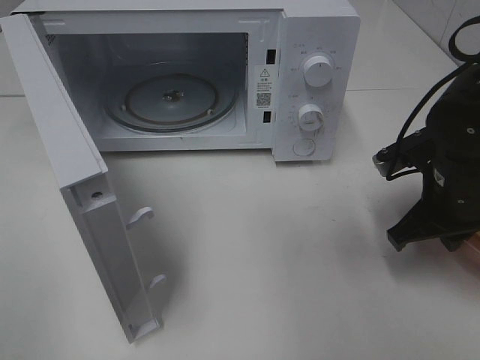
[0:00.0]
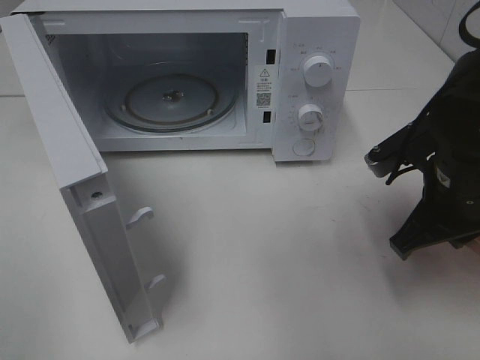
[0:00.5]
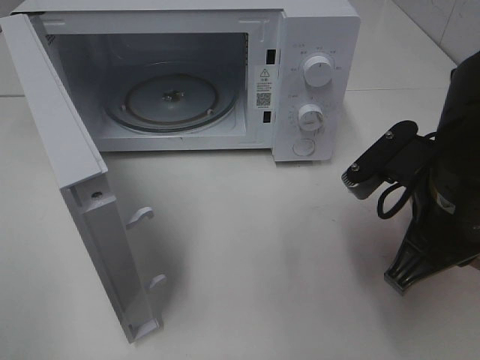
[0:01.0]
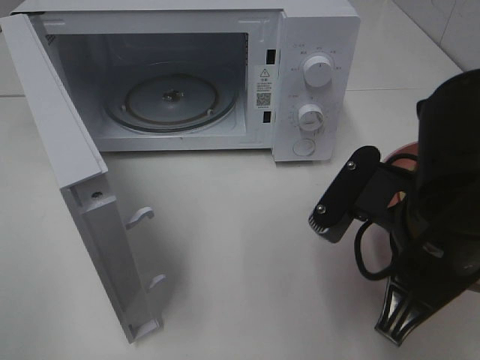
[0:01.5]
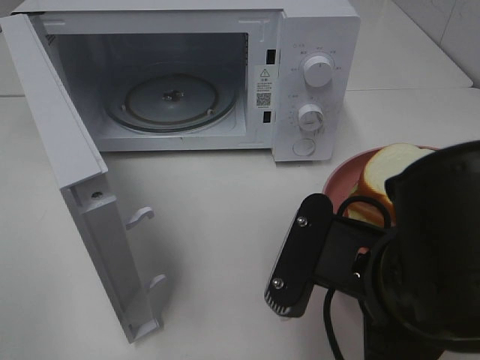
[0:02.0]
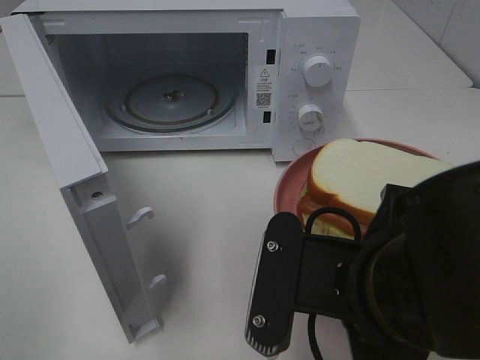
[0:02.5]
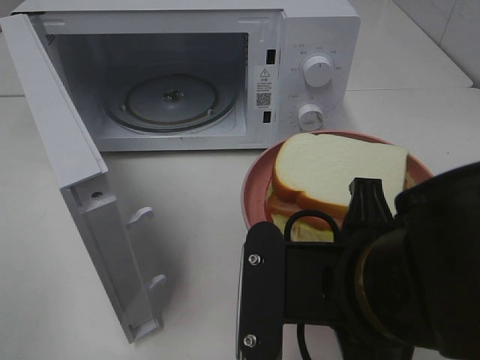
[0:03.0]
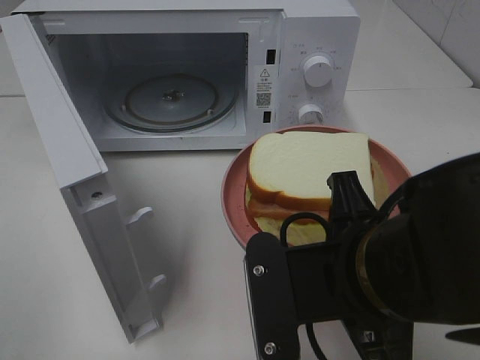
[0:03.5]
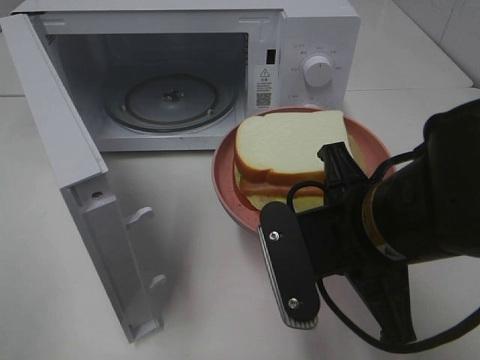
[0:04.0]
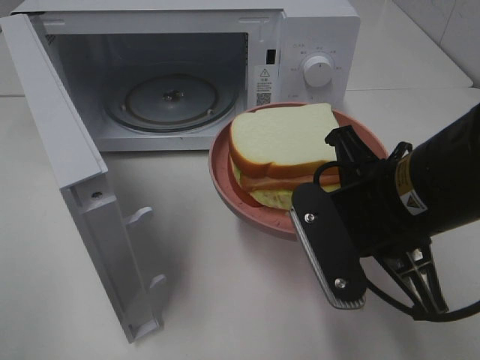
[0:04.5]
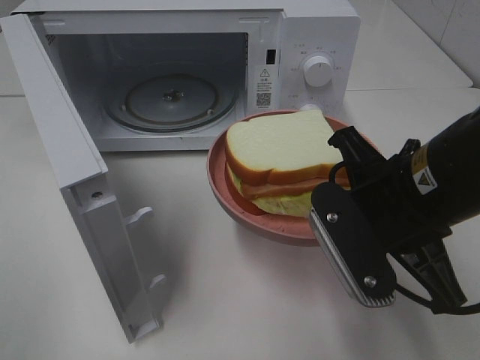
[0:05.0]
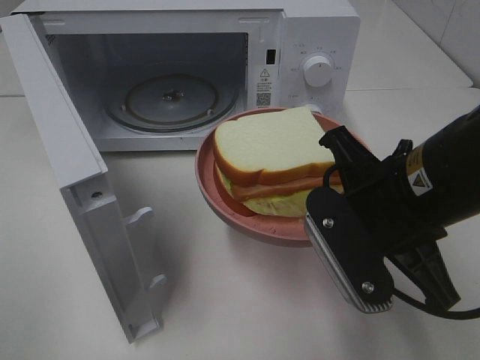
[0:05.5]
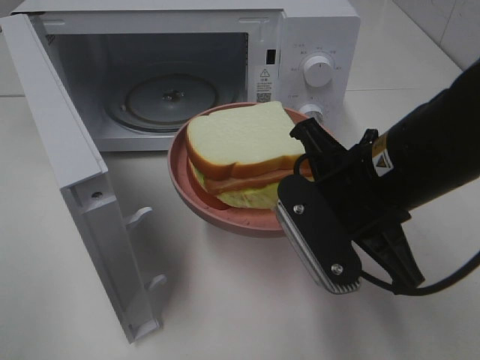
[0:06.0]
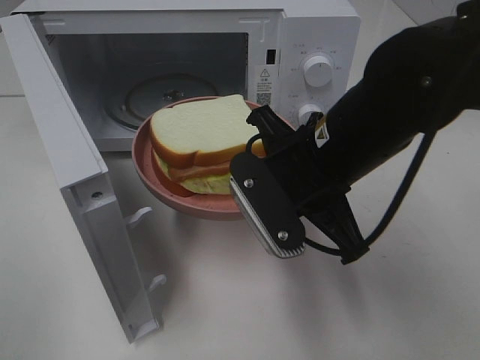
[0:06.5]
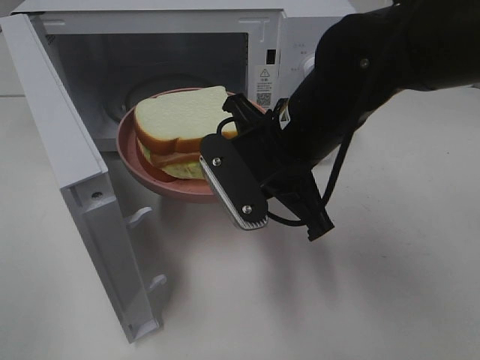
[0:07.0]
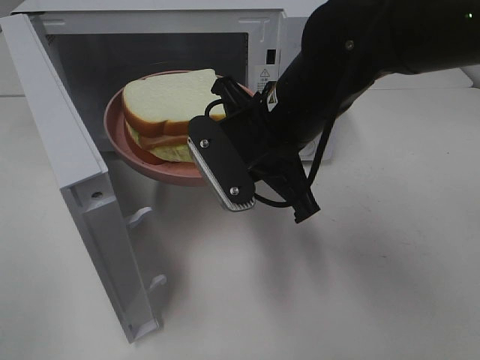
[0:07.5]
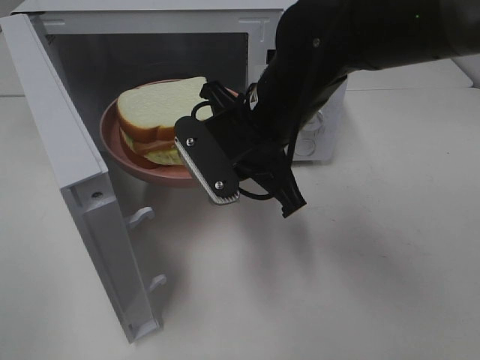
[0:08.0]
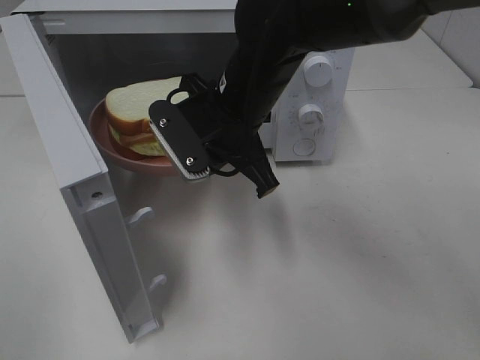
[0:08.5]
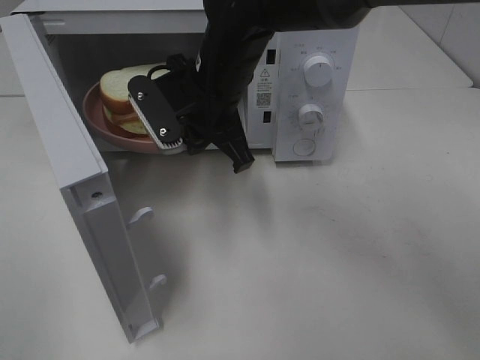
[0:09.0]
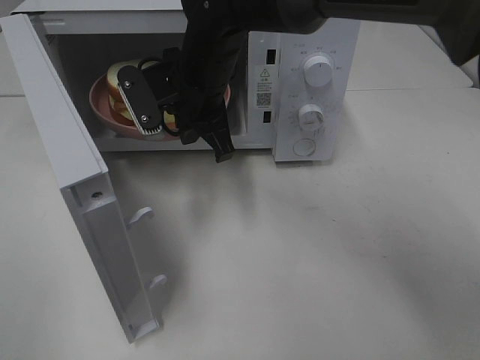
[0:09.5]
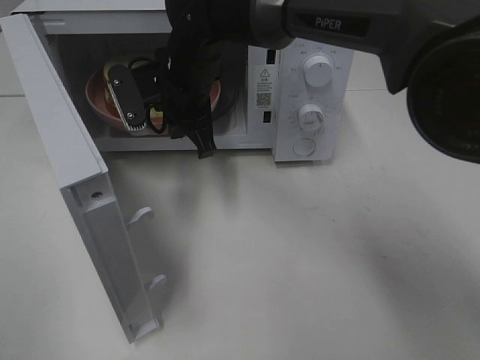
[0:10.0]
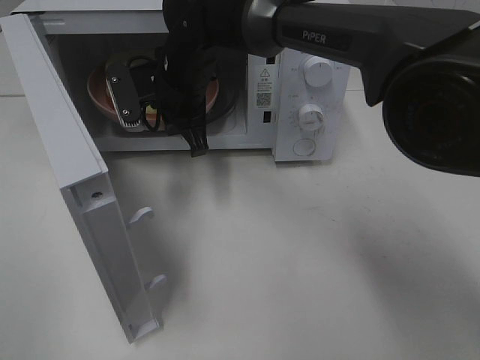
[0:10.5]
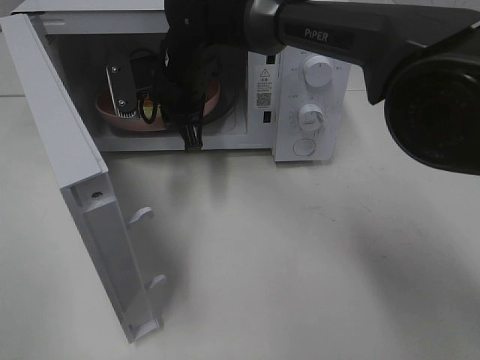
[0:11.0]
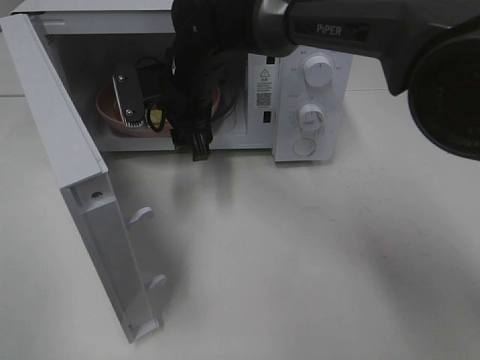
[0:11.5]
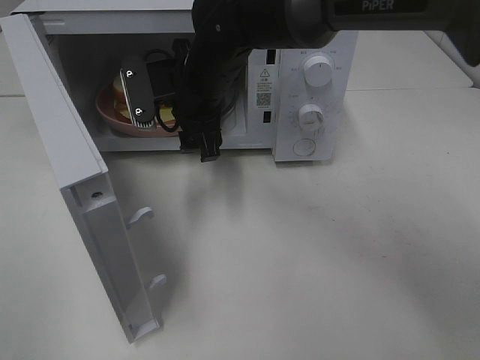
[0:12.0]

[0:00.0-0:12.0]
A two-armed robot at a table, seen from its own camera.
Task of the whole recording: Heat Sandwich.
0:00.0 to 0:02.0: The right gripper goes approximately 20 cm backward and to the left.
0:02.0 to 0:04.0: The right gripper travels forward by some 5 cm.
0:06.0 to 0:08.0: The right gripper shifts roughly 10 cm forward and to the left.
0:08.0 to 0:10.0: The right gripper heads forward and to the left, covering approximately 15 cm.
0:10.0 to 0:12.0: The right gripper opens.

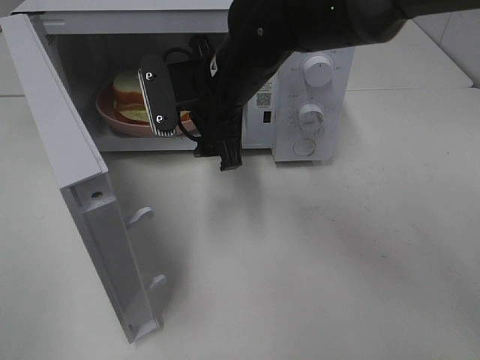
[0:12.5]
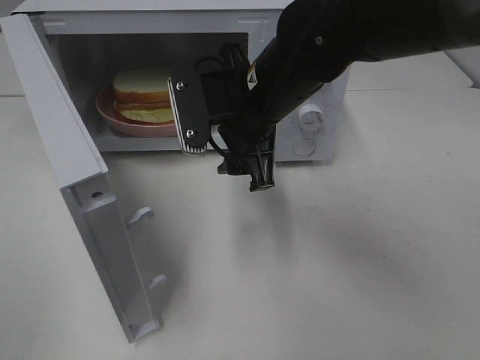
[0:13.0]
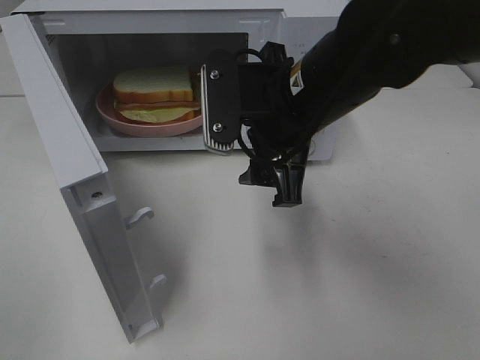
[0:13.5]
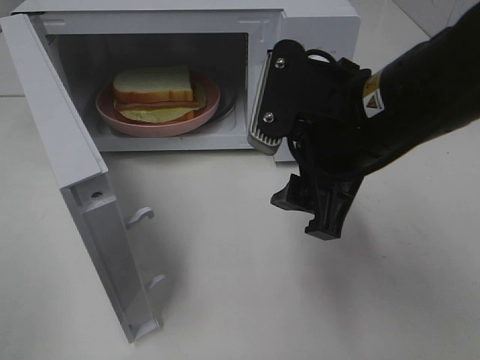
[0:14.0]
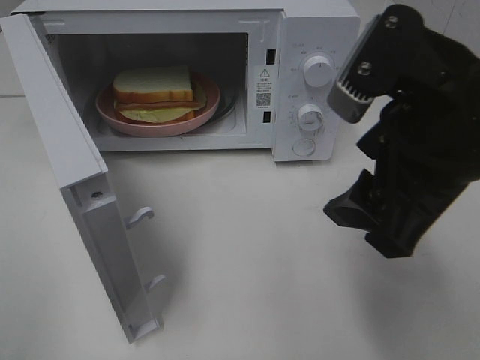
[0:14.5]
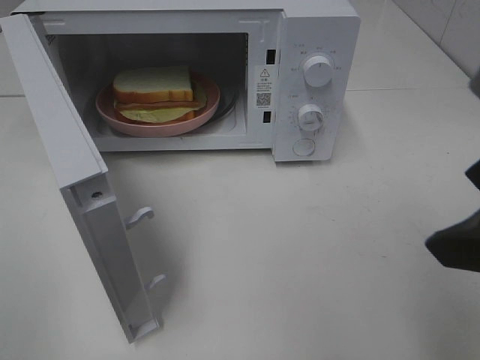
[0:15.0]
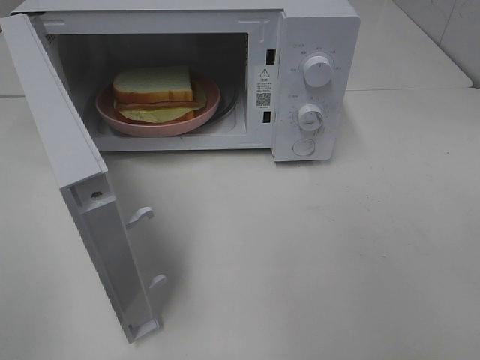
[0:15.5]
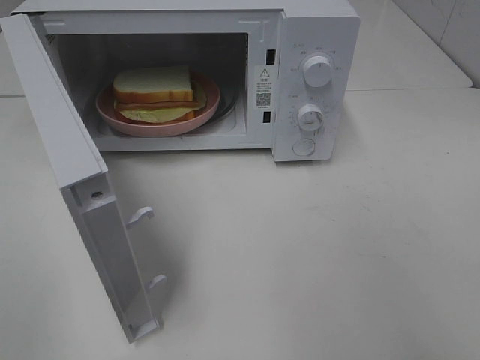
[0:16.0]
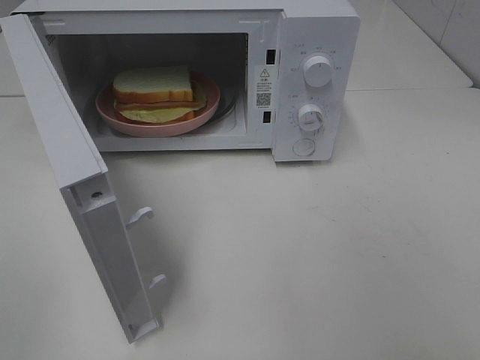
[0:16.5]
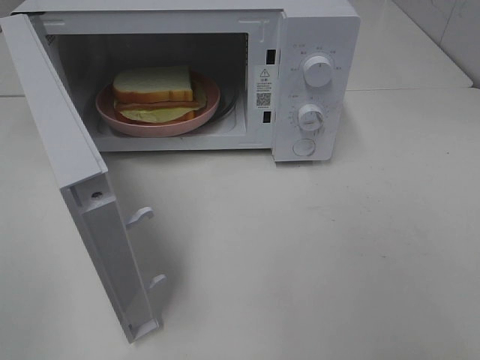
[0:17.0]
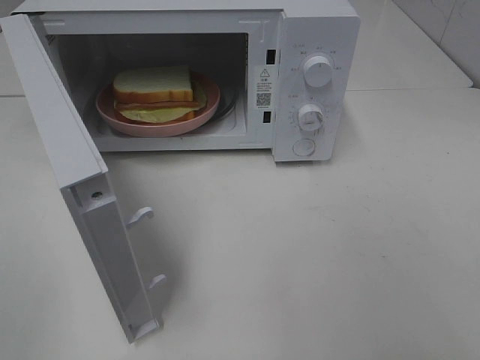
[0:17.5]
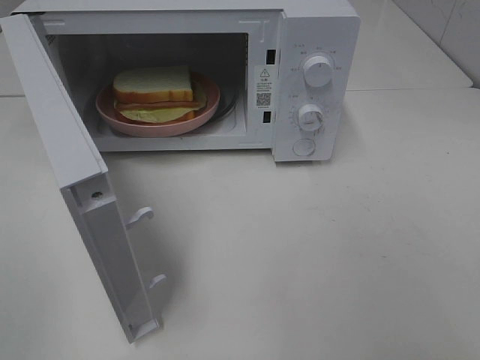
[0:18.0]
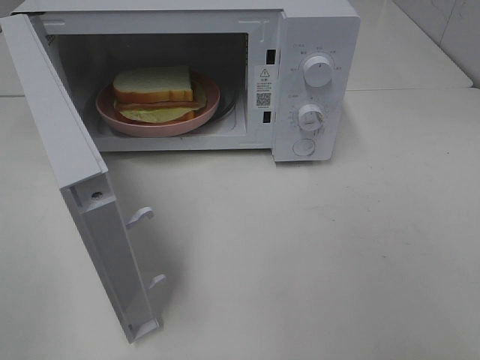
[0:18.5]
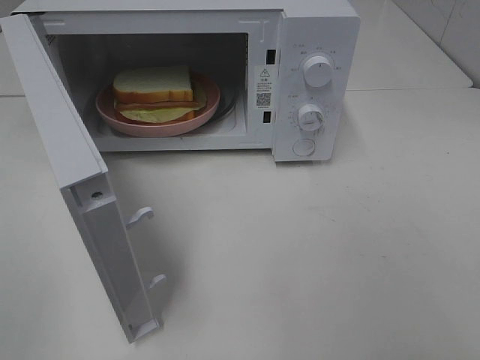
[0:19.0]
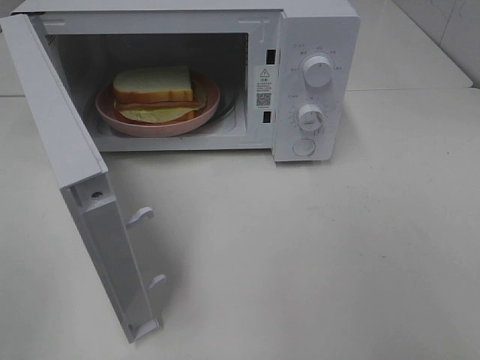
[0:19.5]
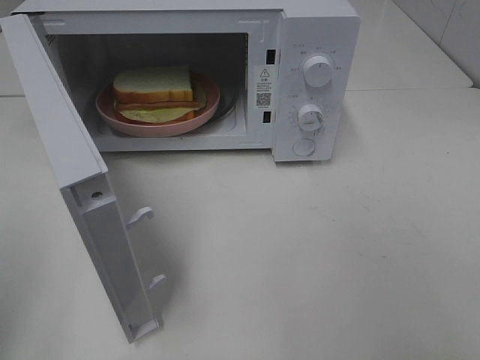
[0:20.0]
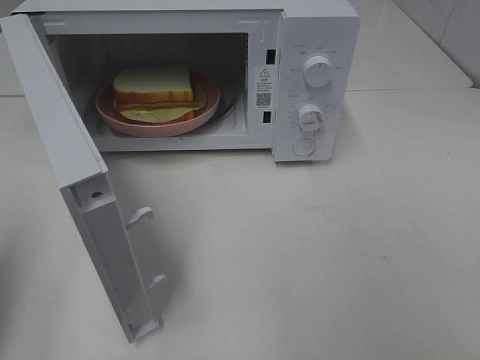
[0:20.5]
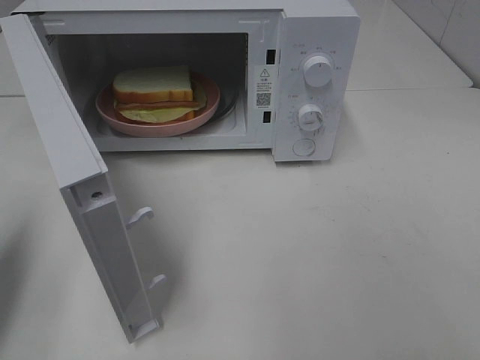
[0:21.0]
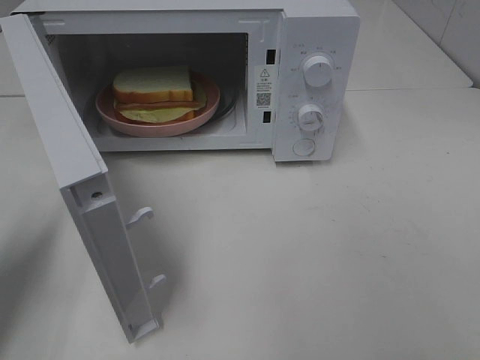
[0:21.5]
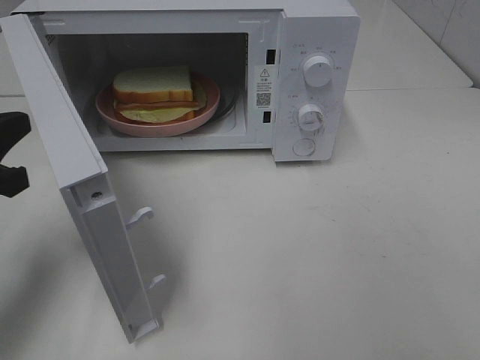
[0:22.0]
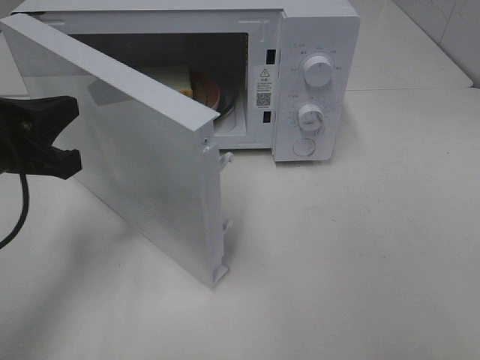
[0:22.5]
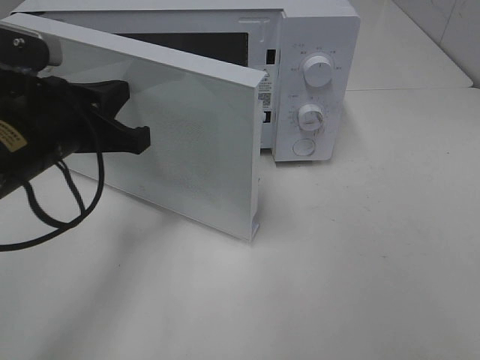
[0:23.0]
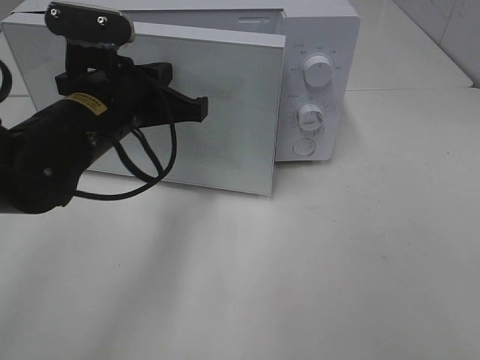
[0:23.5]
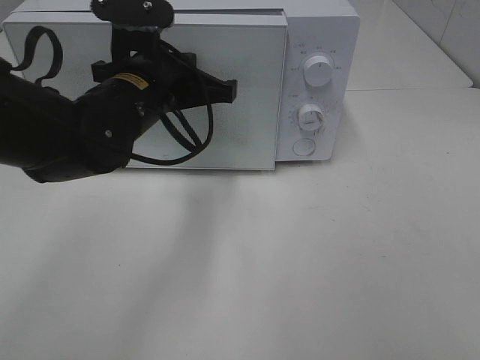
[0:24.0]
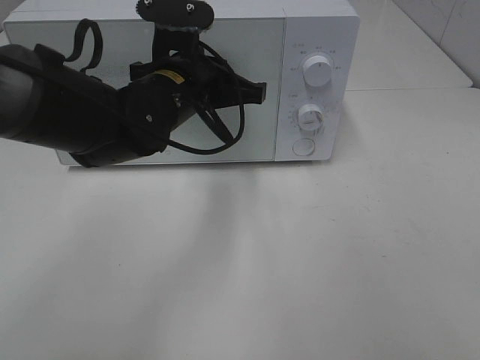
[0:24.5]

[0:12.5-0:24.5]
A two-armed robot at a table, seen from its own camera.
Task of the whole recording: Heat Sandwich.
0:12.5 to 0:14.5: The right gripper shifts about 25 cm backward, to the right and upward.
0:14.5 to 0:16.5: The right gripper goes roughly 25 cm backward and to the right.
0:18.5 to 0:20.5: The left gripper travels forward by roughly 15 cm, and closes up.
0:20.5 to 0:22.5: The left gripper heads forward, to the right and downward, covering some 15 cm.
0:22.5 to 0:24.5: The left gripper moves to the right and forward, roughly 20 cm.

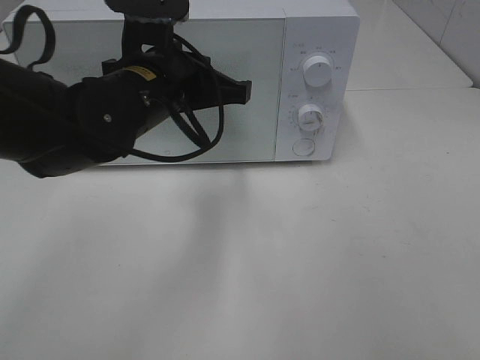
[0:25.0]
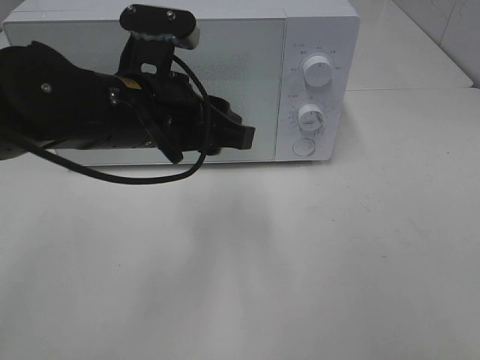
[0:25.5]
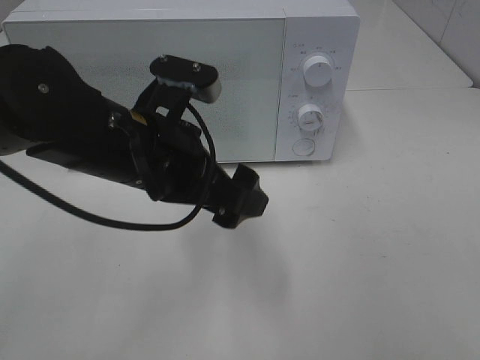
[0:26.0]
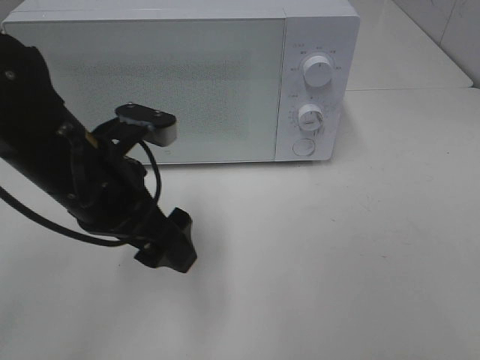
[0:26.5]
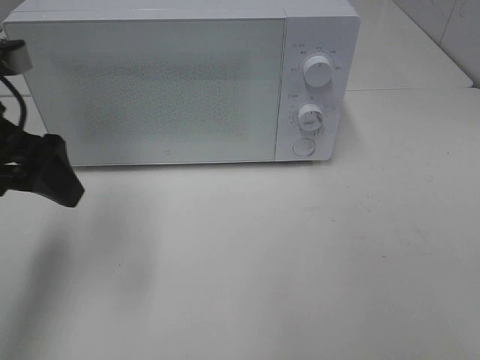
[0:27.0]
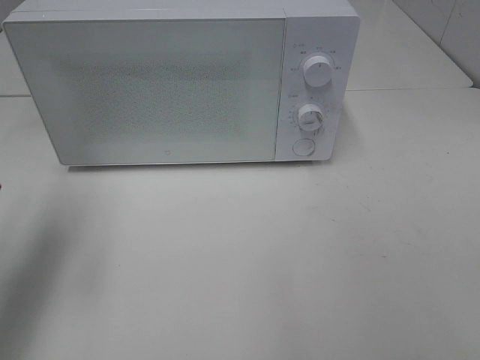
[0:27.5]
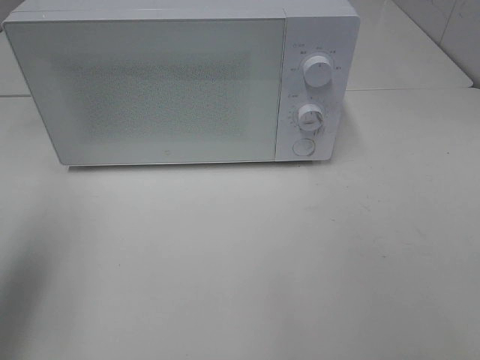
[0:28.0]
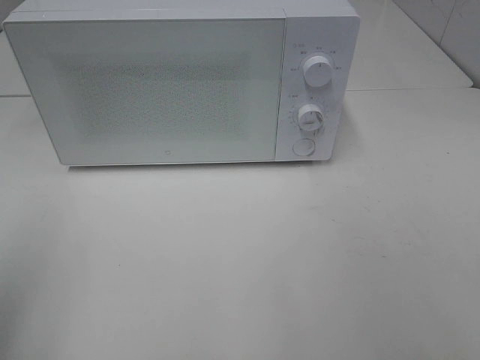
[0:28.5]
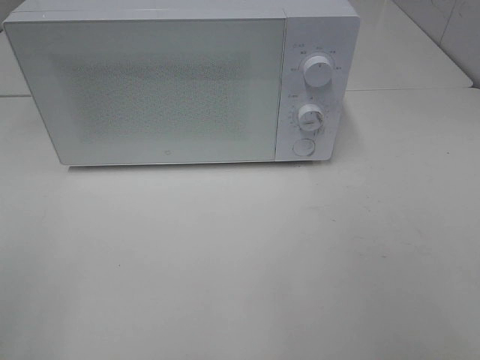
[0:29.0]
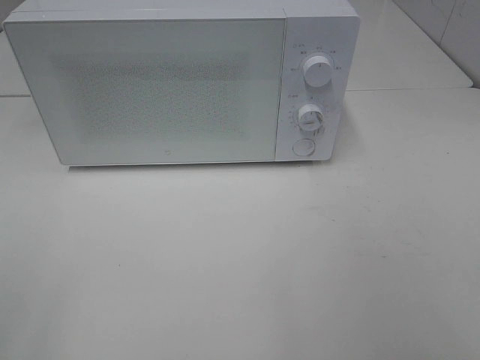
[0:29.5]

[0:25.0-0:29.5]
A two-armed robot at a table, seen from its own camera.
Task of the whole recording: Heat Sandwich.
0:25.0 to 0:27.0: The left gripper is displaced to the left by approximately 15 cm, and opens.
0:27.0 to 0:29.5: The left gripper shifts roughly 25 cm backward.
